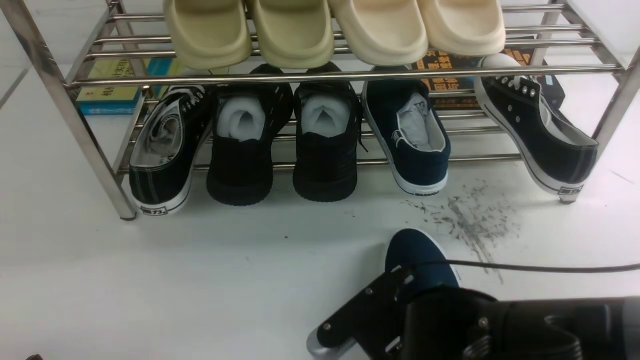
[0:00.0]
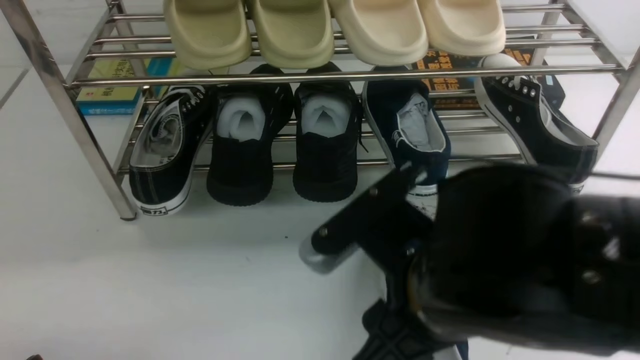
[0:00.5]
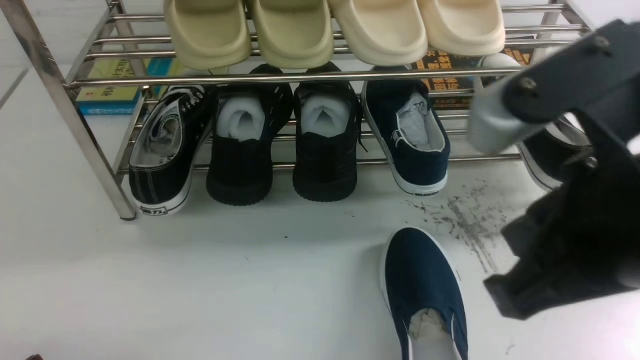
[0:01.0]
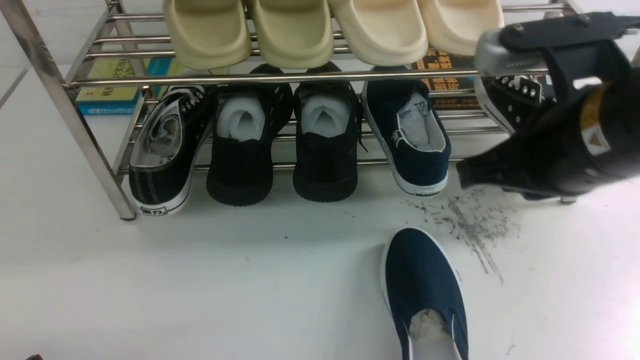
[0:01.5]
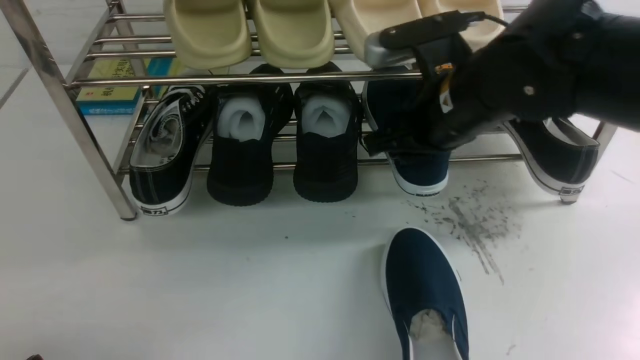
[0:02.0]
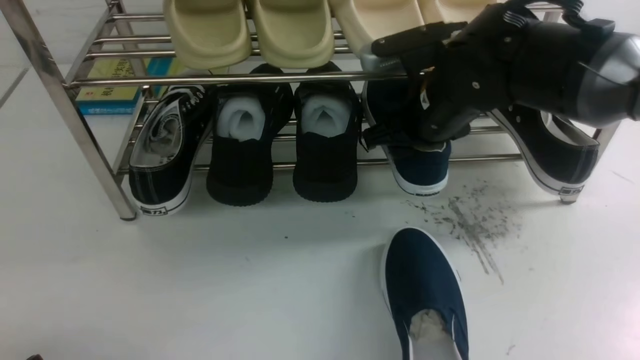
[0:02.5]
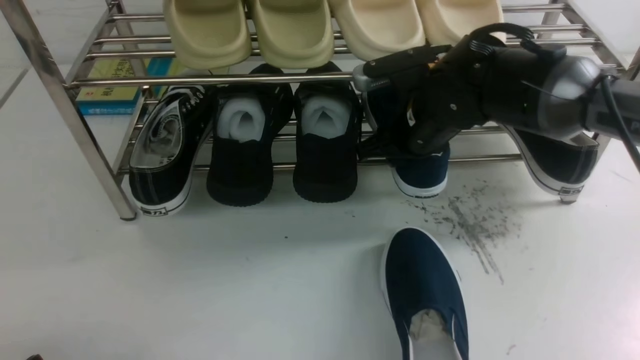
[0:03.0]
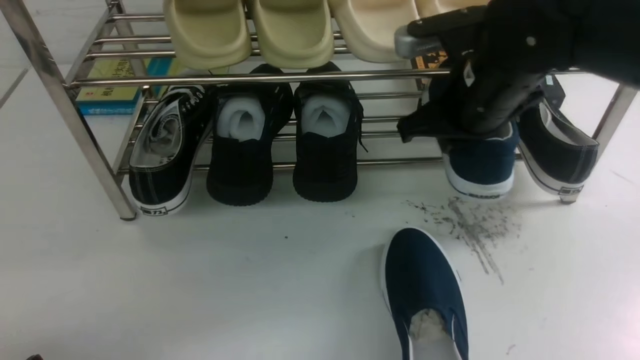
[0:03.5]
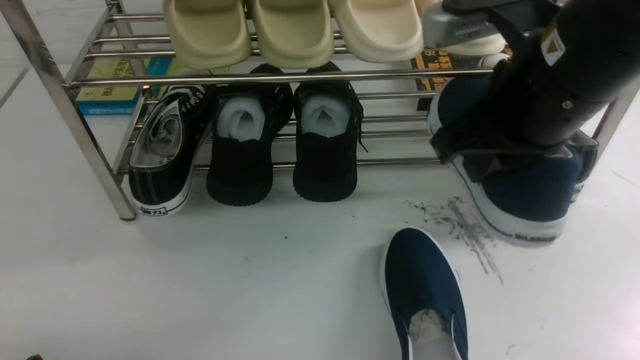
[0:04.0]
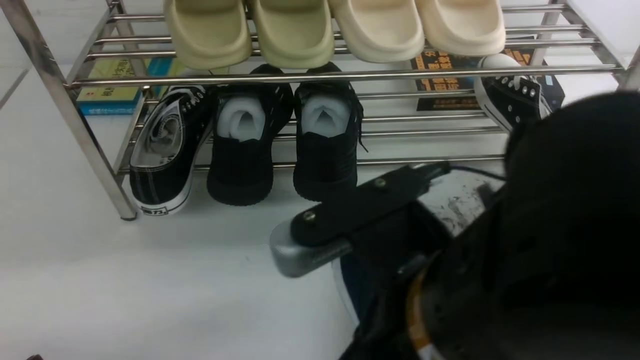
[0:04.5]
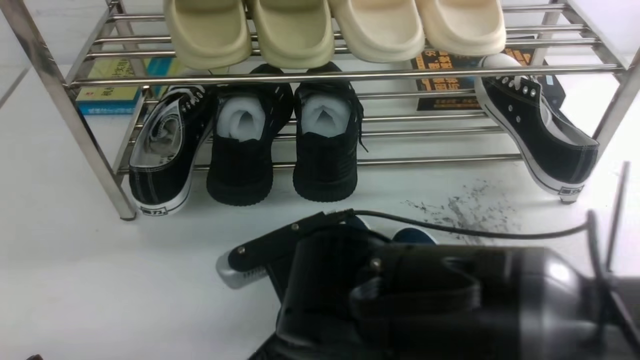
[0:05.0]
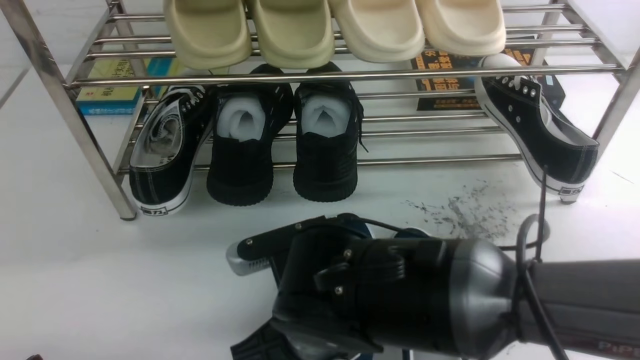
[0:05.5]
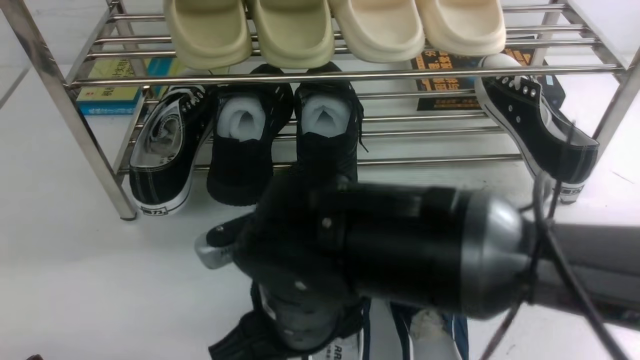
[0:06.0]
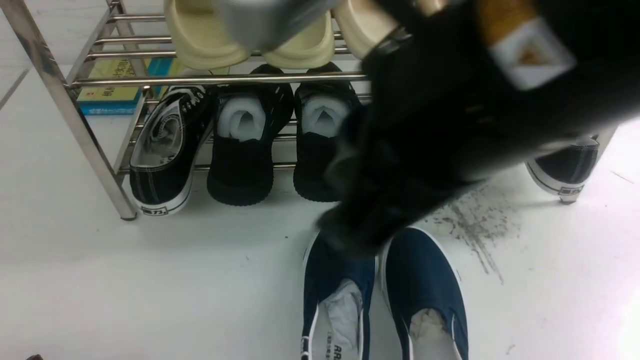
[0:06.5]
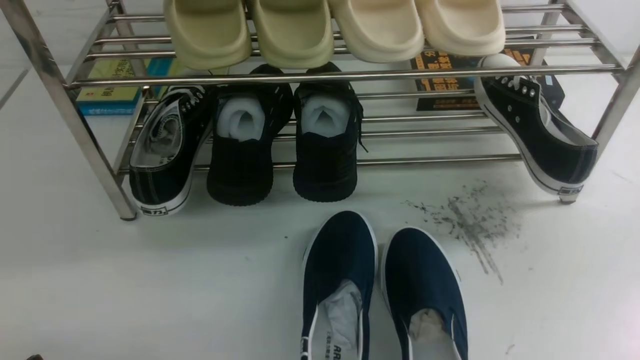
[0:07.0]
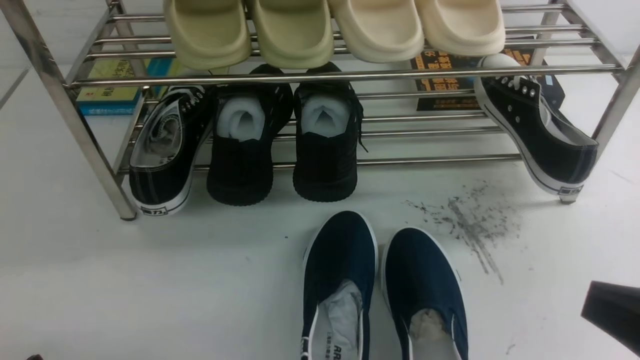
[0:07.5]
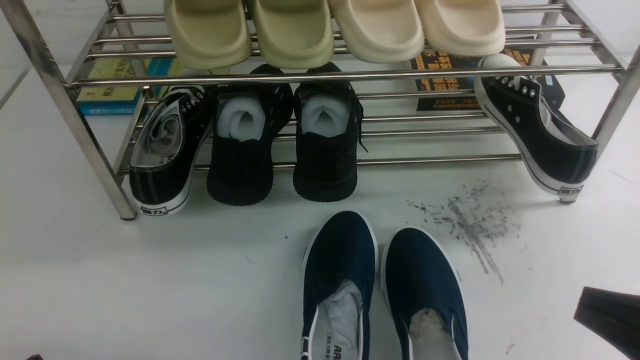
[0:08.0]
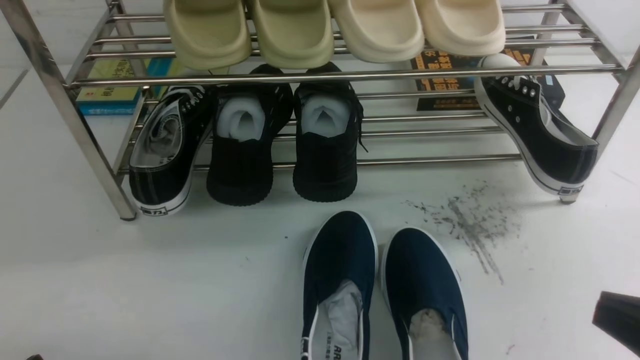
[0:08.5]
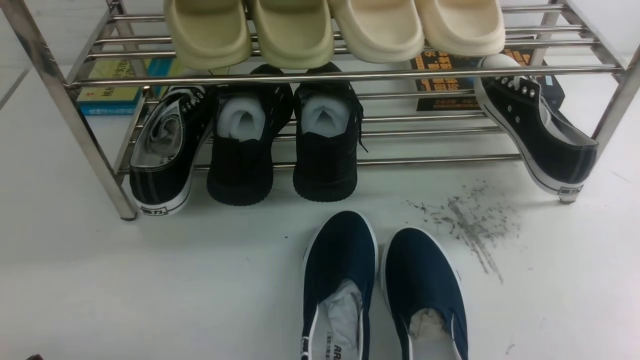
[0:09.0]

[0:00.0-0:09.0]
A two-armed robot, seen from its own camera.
Step, 0:01.0 to 0:03.0: use the right arm to clamp a shoe on the right side of the shoe rack.
Step, 0:03.5 to 0:06.0: use the right arm to take out the clamped shoe from the shoe rack and put it down.
0:00.0 to 0:02.0: The right gripper shifts some 20 cm forward and upward, and opens.
0:02.0 to 0:04.5: The right gripper moves backward, about 20 cm, and closes up.
0:04.5 to 0:07.0: The right gripper travels to the right by about 20 cm, and opens, then closes again.

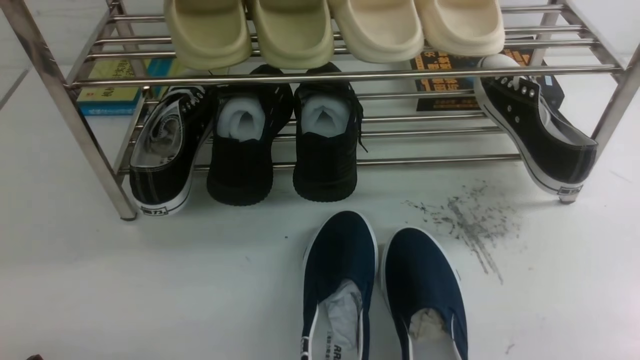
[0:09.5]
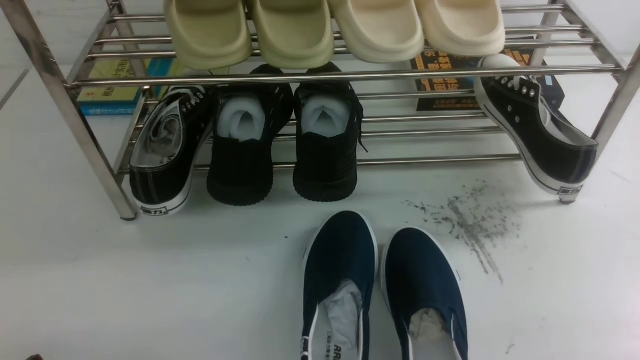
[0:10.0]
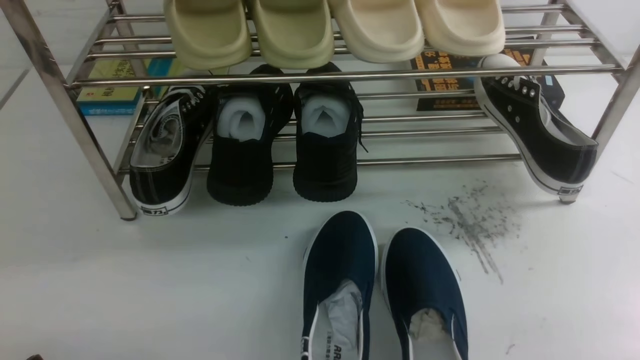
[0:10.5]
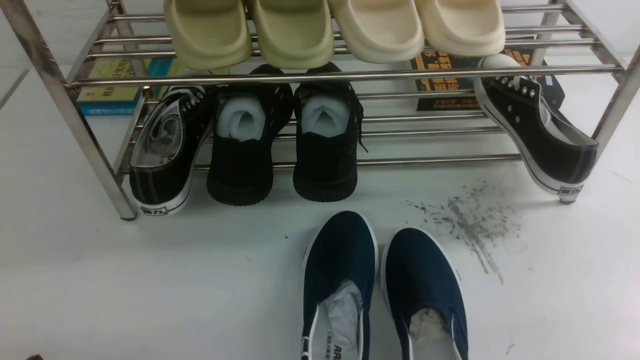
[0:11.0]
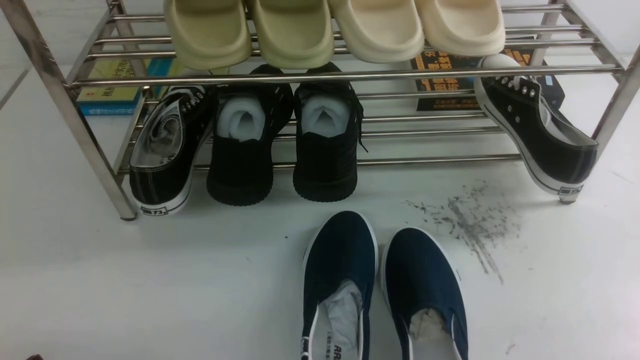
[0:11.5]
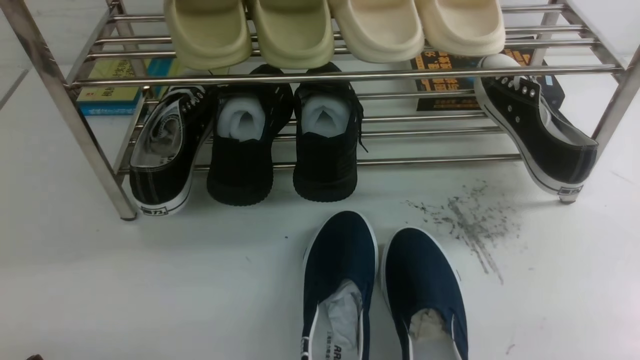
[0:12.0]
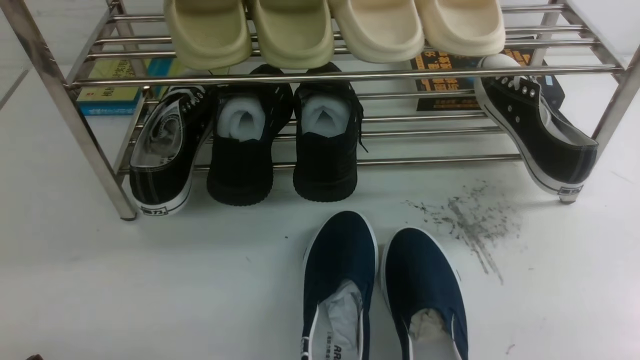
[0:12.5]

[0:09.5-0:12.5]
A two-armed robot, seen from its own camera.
0:09.5 to 0:12.5: The two grippers keep their place.
